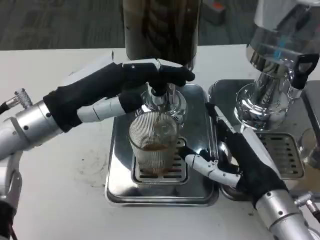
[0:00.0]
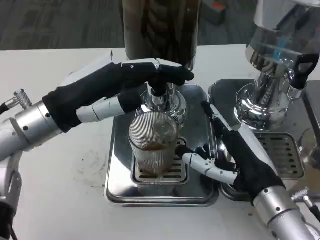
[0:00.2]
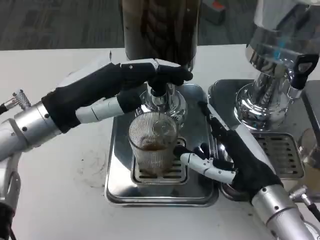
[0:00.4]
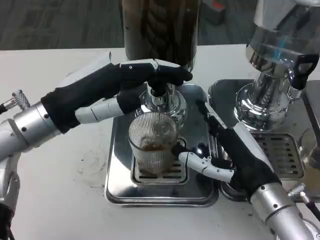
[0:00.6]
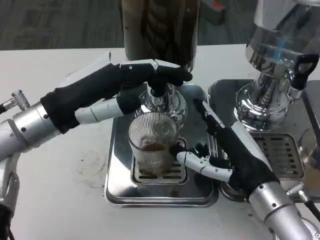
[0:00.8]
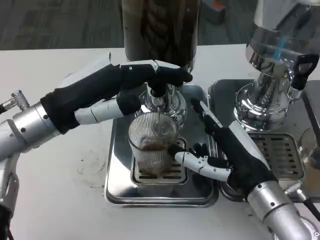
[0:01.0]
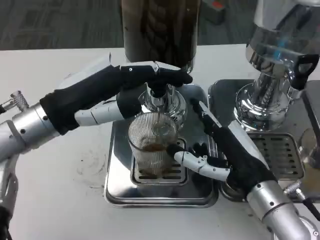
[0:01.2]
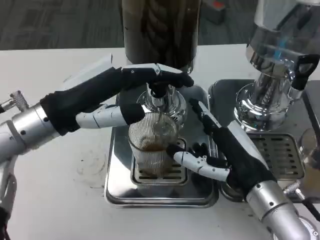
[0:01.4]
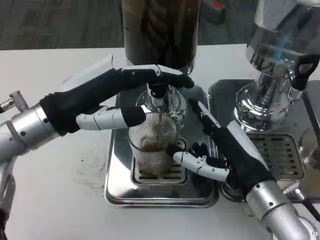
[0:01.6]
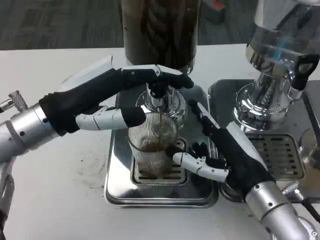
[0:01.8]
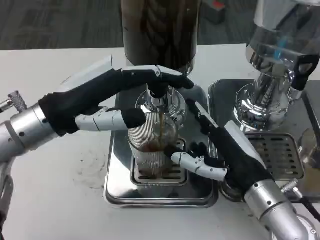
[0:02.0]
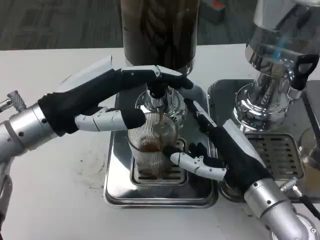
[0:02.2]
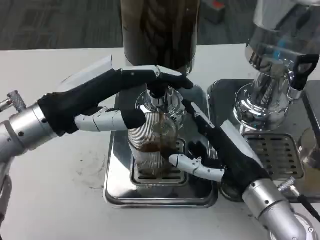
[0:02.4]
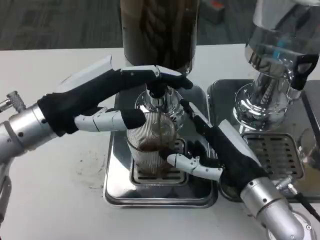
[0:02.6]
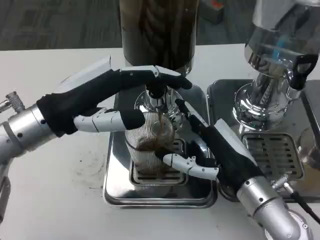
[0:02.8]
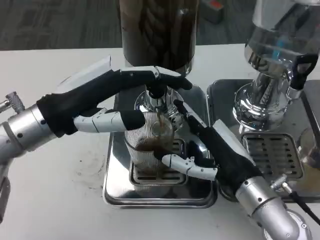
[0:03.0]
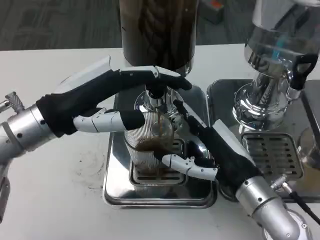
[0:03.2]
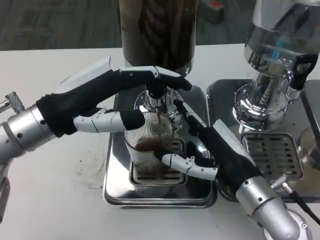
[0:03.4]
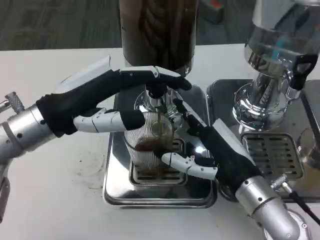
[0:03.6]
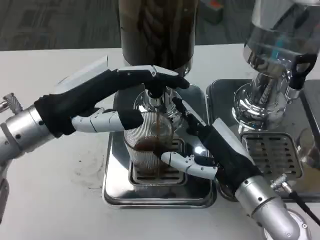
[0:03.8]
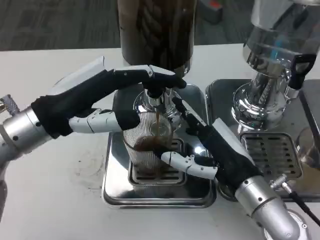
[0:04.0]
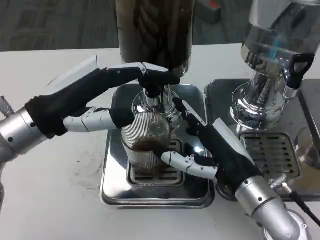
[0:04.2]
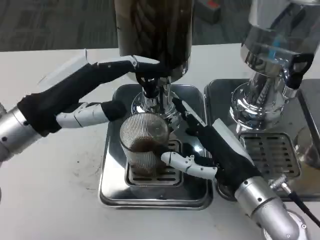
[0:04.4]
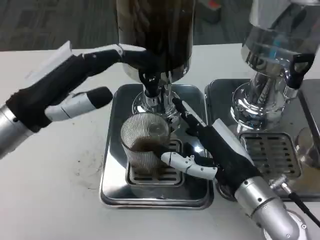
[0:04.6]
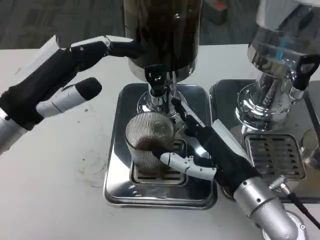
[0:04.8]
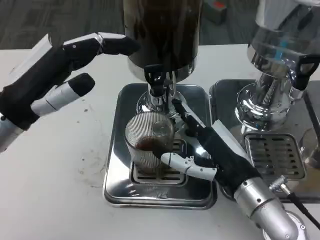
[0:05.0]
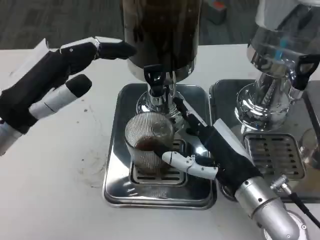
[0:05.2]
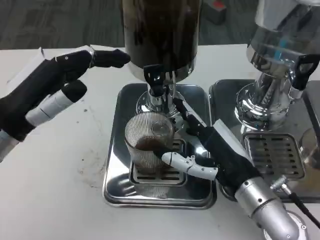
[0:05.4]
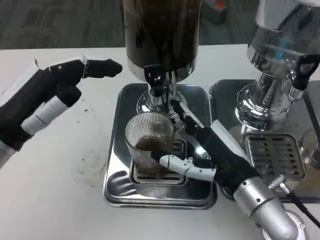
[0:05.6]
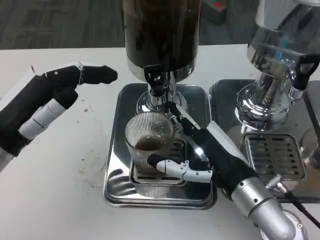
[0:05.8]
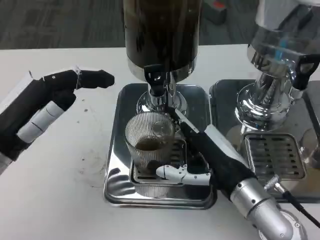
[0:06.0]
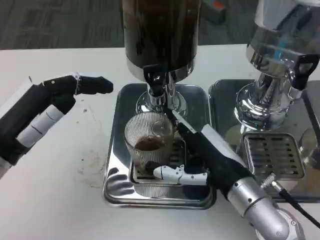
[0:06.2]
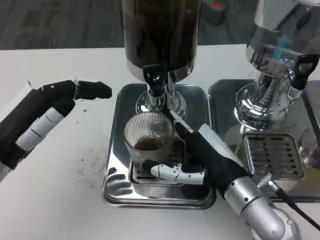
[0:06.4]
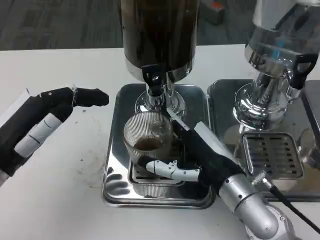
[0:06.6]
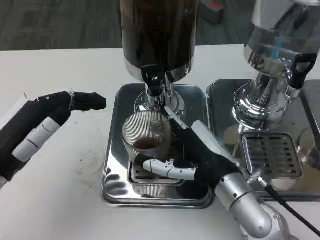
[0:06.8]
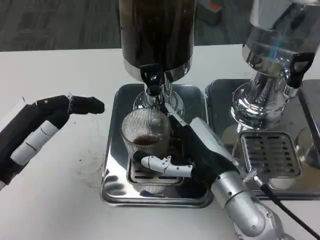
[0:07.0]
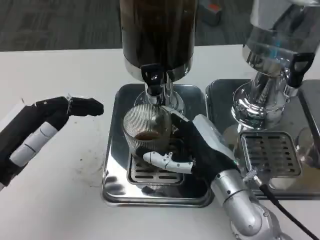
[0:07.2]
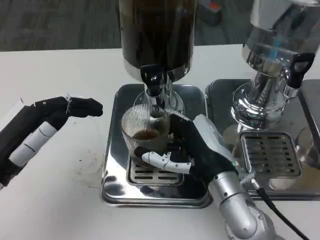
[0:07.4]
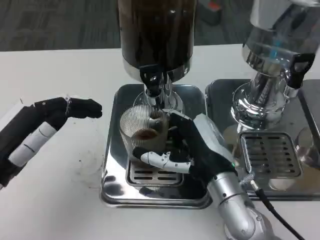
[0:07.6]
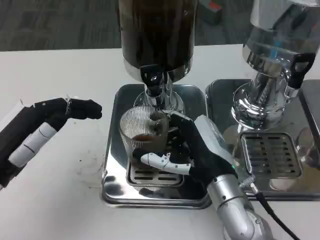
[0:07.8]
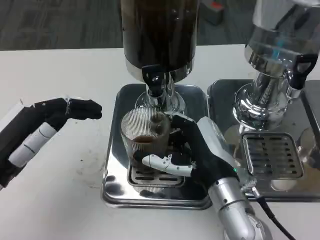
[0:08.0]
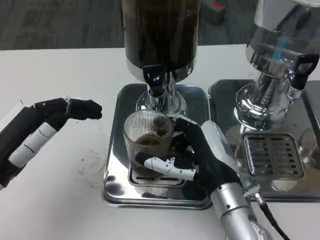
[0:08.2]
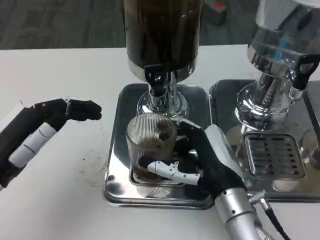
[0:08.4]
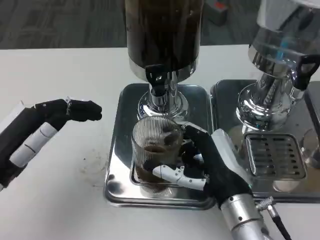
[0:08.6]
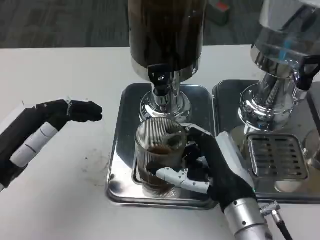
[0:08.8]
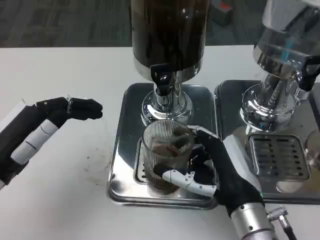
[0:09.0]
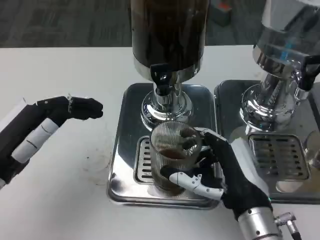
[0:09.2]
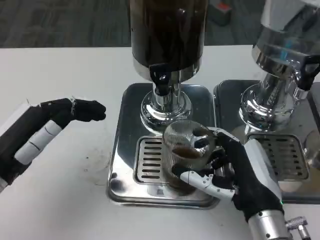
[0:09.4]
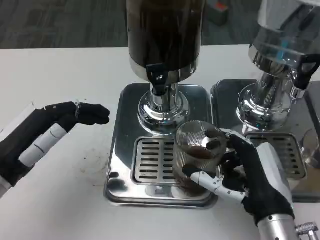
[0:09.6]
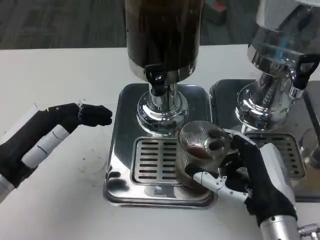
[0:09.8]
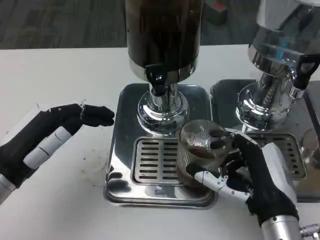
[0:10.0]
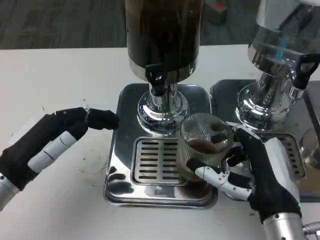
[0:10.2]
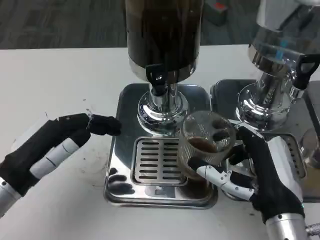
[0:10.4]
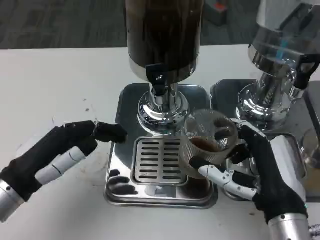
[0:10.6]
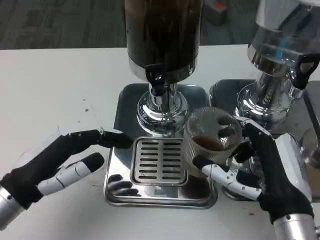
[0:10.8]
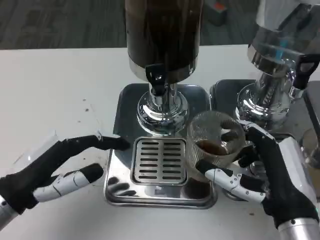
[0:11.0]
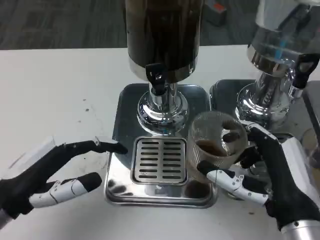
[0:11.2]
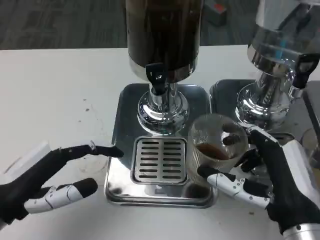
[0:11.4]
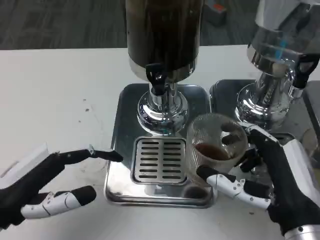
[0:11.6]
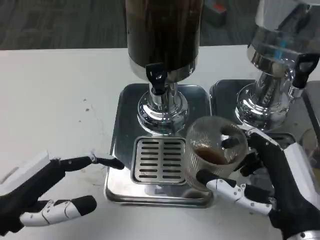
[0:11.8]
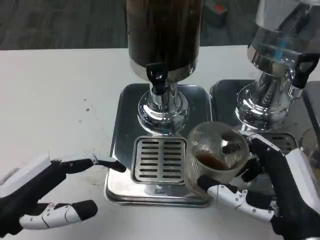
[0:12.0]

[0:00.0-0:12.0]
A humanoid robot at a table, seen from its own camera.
Task of the whole recording: Grasp the cup under the faucet to collect the drink, then remove the cup.
0:00.0 to 0:01.6: There are only small adjustments of the hands.
0:01.6 to 0:03.0: Neither hand changes place.
0:04.4 to 0:06.0: The left hand moves roughly 5 cm.
0:07.6 to 0:09.0: The right hand ends up approximately 5 cm from where it was.
0:10.4 to 0:12.0: The left hand moves about 5 cm, while the right hand shifts by roughly 5 cm.

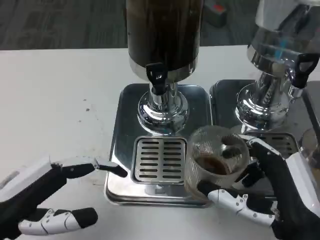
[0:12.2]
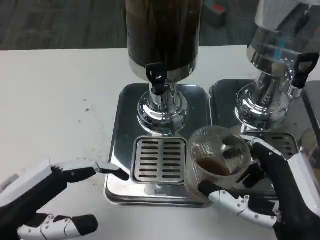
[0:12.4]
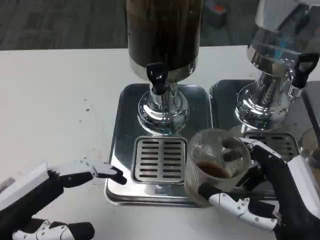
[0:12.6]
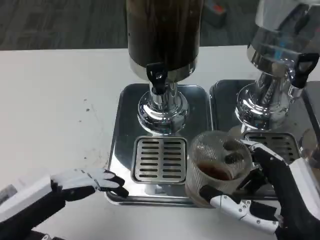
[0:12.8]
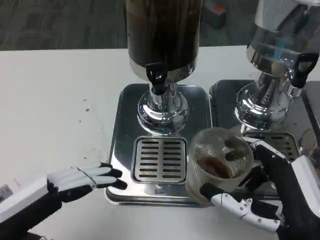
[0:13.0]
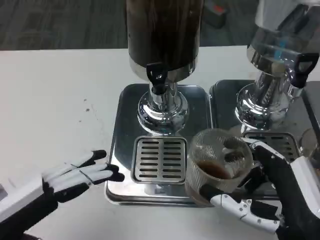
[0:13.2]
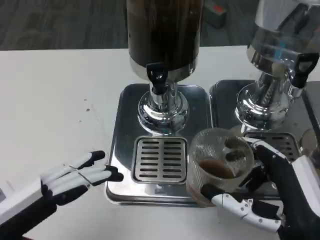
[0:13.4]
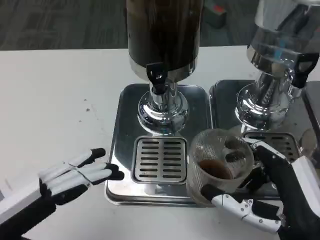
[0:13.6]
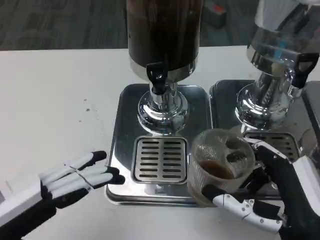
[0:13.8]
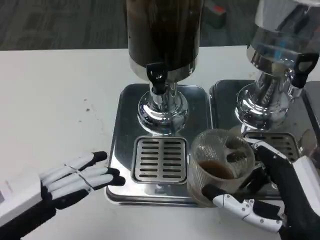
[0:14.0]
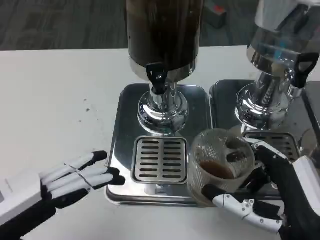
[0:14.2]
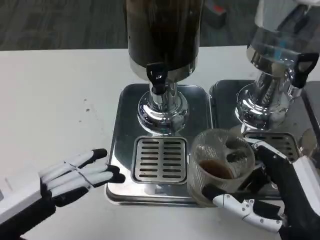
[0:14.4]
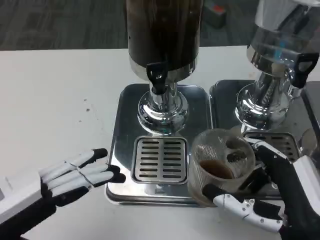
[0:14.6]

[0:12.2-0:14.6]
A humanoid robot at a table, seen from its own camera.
Task of the whole recording: Grasp the cup under the faucet to collect the drink, then remove the cup.
0:12.2 to 0:13.4: The hands make only small movements.
0:13.4 to 0:14.6: Both hands stay put.

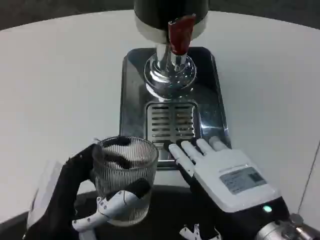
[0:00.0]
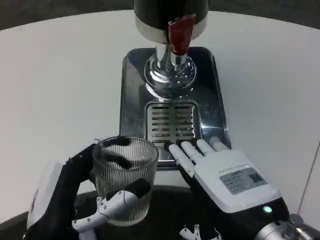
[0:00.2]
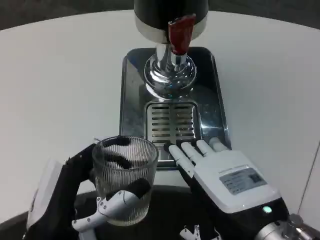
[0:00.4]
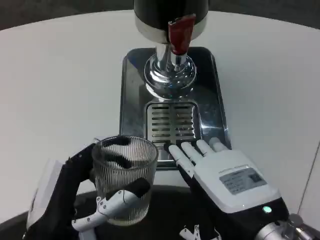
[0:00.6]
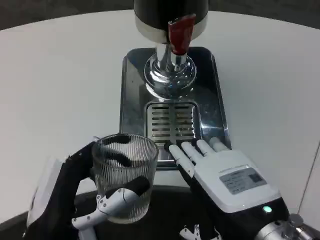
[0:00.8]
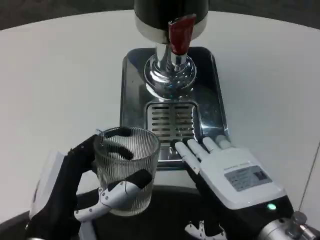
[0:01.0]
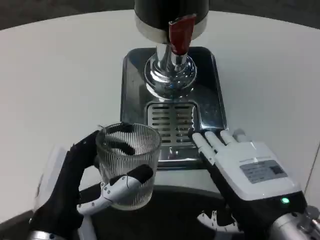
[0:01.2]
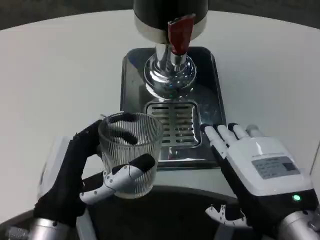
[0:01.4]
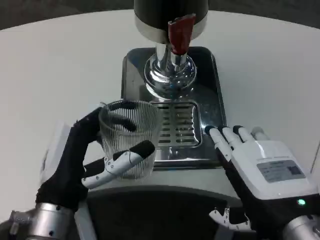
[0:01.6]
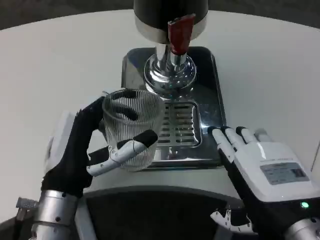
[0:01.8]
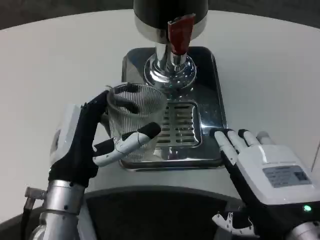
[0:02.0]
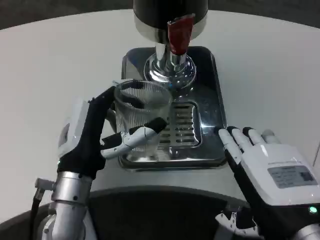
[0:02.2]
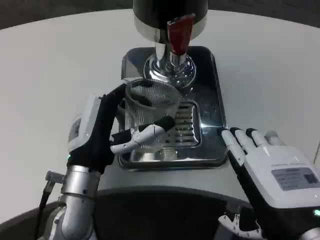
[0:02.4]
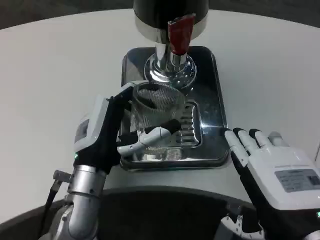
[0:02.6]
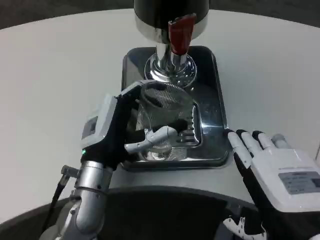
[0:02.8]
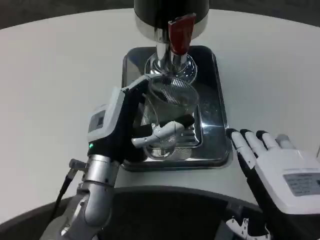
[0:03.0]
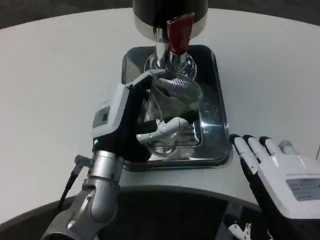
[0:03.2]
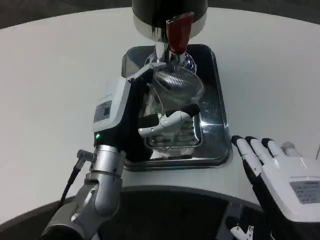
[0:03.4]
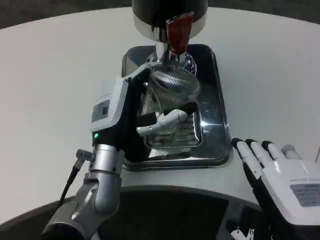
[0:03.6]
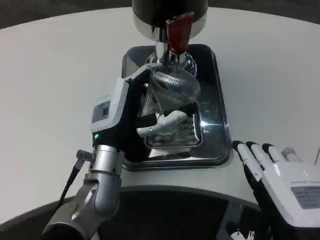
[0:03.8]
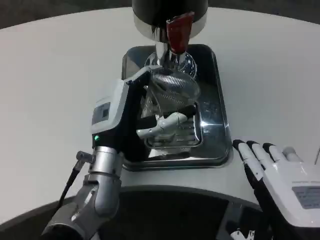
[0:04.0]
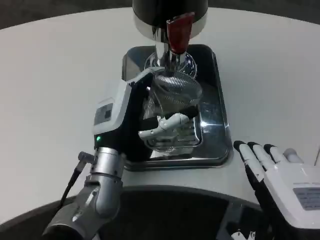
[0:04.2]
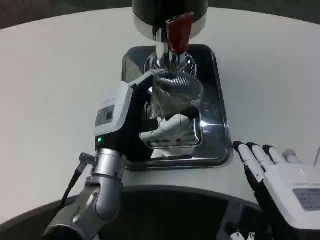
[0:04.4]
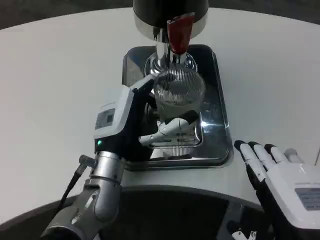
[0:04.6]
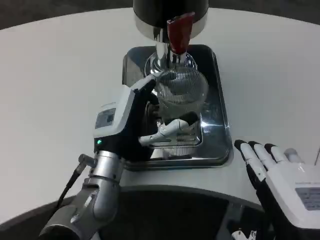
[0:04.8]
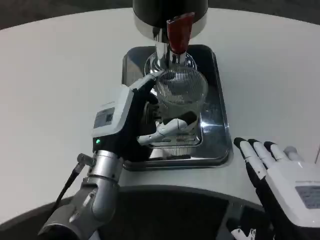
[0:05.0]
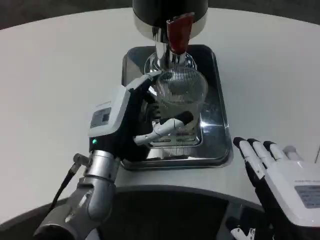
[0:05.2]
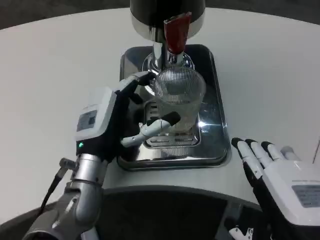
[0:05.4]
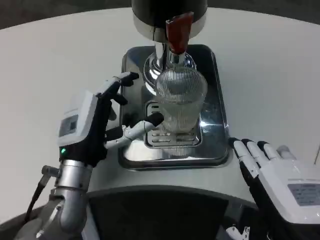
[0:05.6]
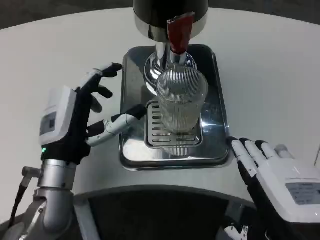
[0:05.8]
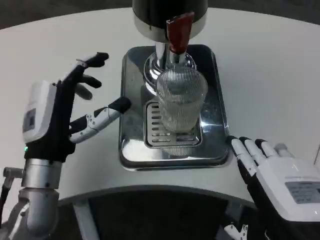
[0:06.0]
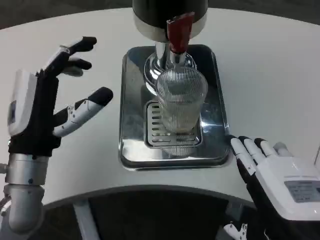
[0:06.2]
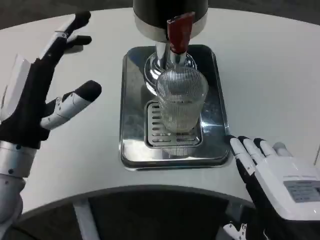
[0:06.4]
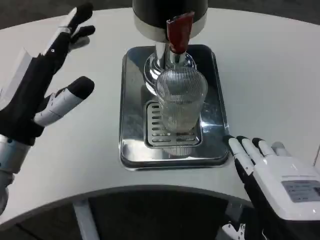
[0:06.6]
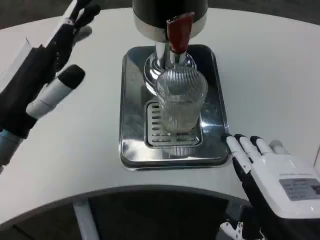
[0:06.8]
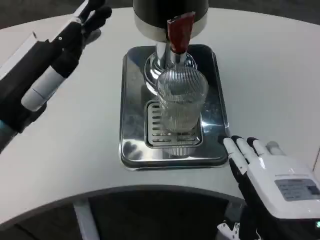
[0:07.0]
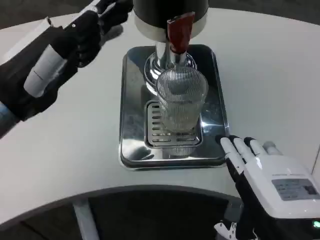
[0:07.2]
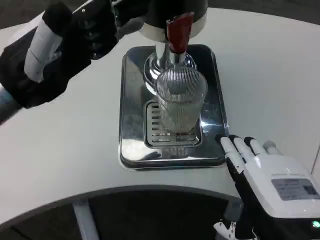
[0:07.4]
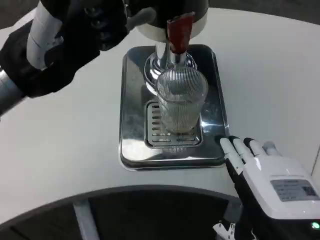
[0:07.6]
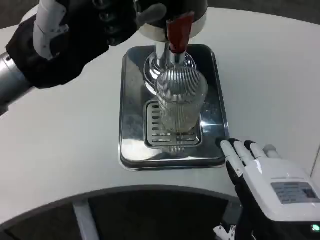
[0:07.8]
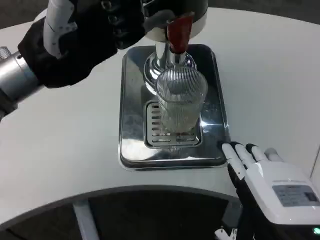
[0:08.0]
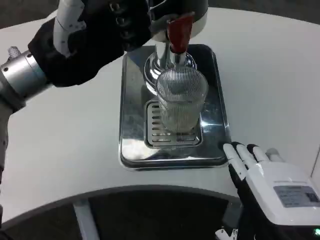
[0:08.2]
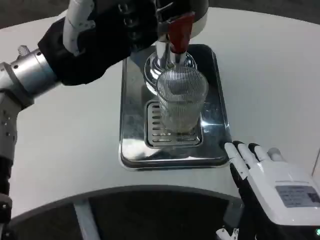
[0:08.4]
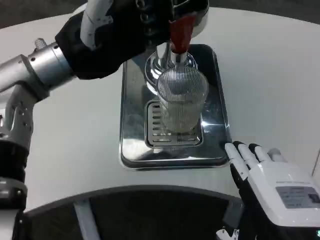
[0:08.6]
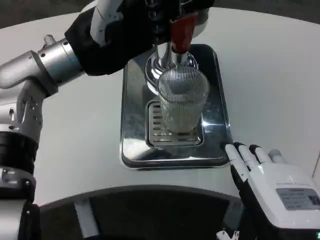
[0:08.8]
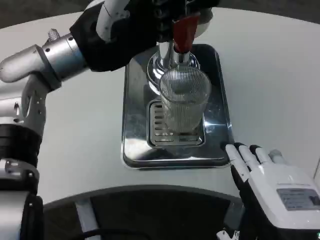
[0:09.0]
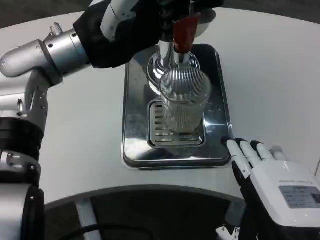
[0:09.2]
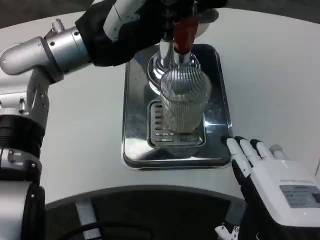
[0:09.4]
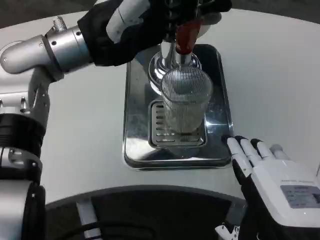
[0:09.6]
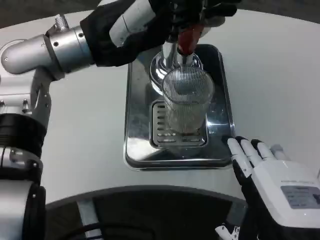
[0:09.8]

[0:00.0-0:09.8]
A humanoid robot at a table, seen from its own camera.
Task of the whole recording: Grasp the cup under the faucet to collect the drink, then remove the cup.
0:01.4 to 0:02.8: The left hand shifts some 10 cm forward.
0:04.2 to 0:05.6: The left hand moves to the left, roughly 5 cm.
0:05.6 to 0:07.0: The left hand moves upward and to the left, roughly 15 cm.
0:07.0 to 0:08.4: The left hand moves forward and upward, approximately 10 cm.
0:08.4 to 0:09.8: The left hand ends up approximately 5 cm from where it was.
